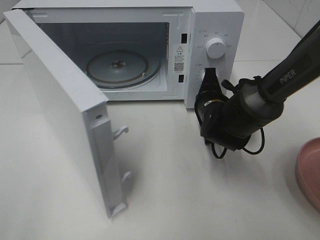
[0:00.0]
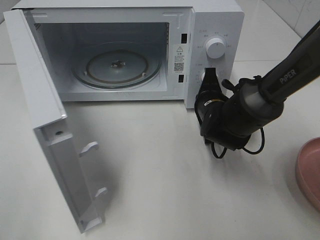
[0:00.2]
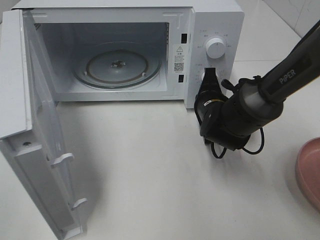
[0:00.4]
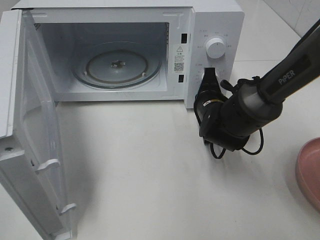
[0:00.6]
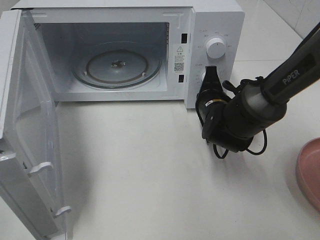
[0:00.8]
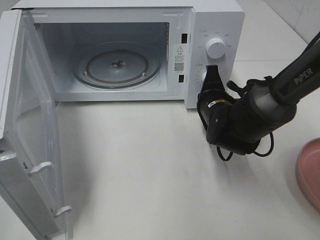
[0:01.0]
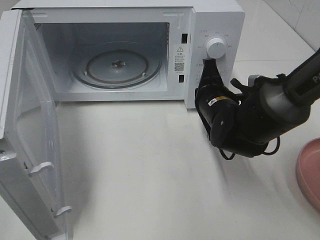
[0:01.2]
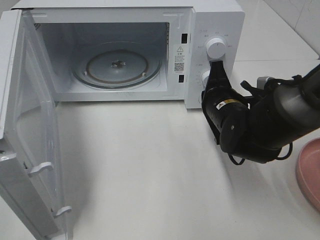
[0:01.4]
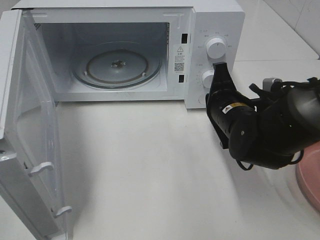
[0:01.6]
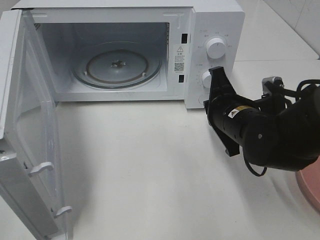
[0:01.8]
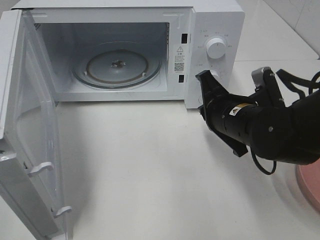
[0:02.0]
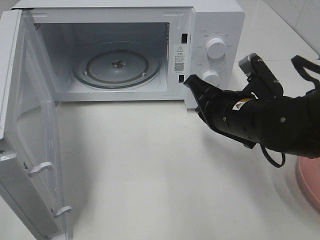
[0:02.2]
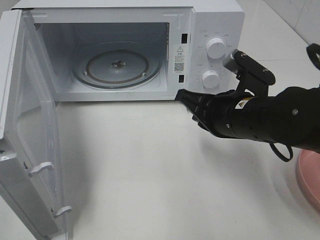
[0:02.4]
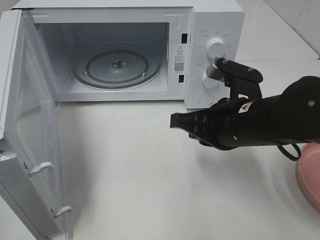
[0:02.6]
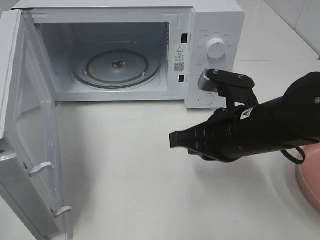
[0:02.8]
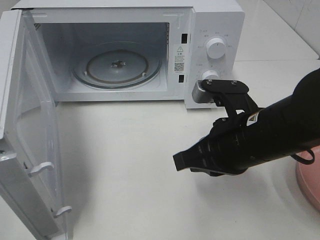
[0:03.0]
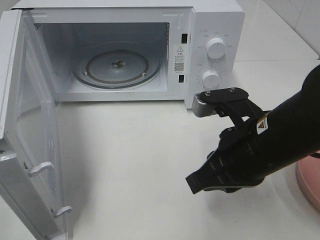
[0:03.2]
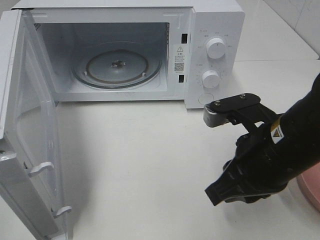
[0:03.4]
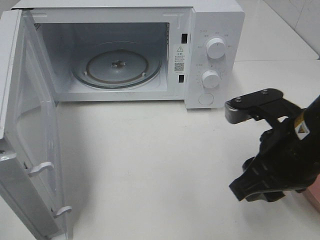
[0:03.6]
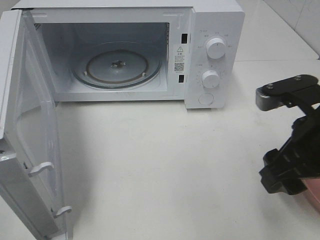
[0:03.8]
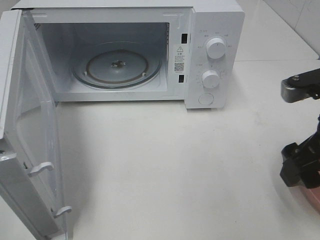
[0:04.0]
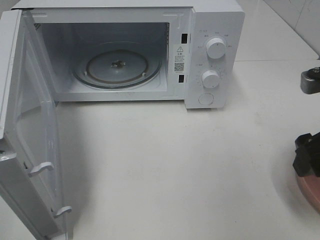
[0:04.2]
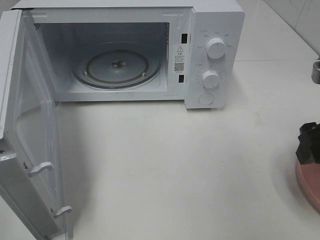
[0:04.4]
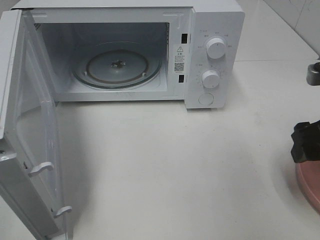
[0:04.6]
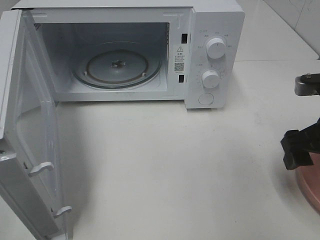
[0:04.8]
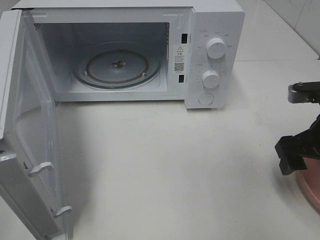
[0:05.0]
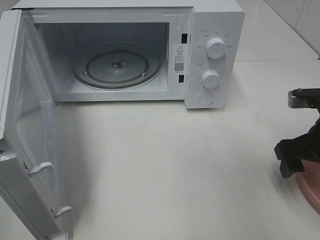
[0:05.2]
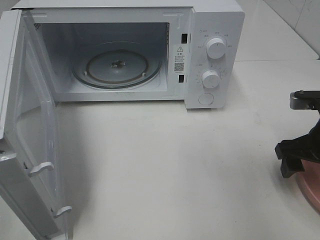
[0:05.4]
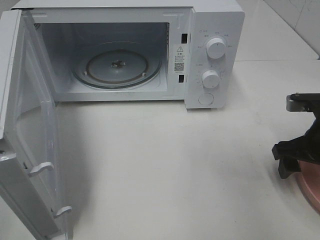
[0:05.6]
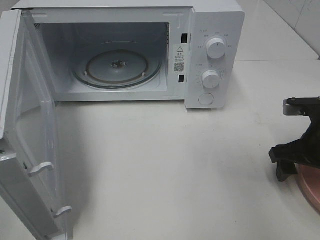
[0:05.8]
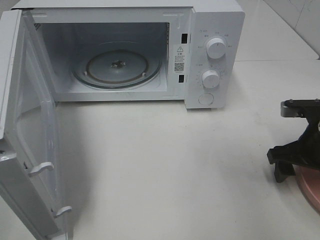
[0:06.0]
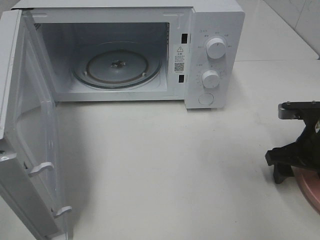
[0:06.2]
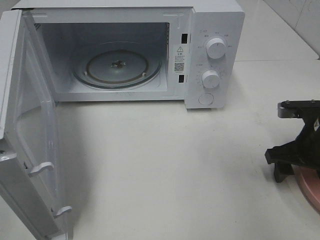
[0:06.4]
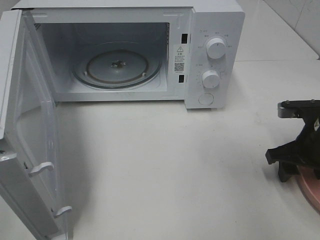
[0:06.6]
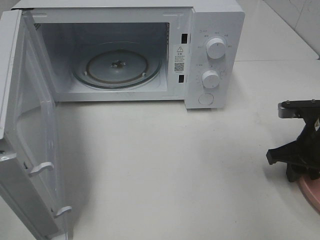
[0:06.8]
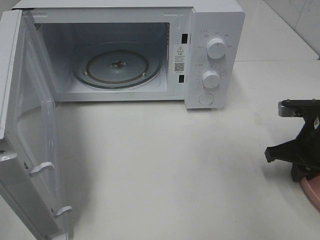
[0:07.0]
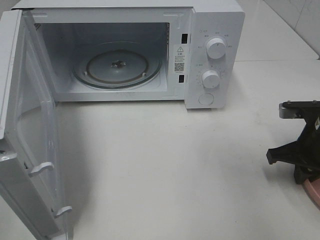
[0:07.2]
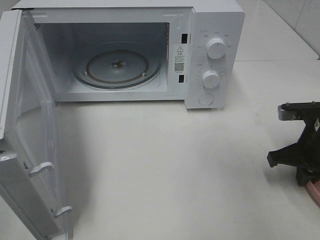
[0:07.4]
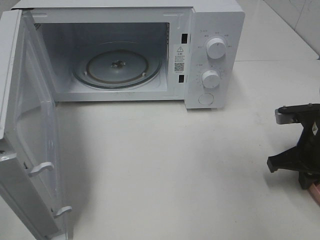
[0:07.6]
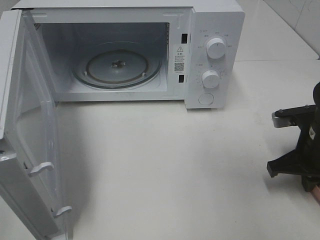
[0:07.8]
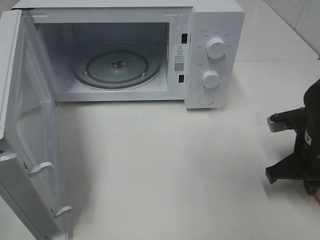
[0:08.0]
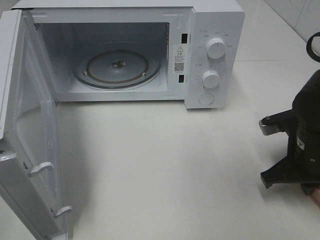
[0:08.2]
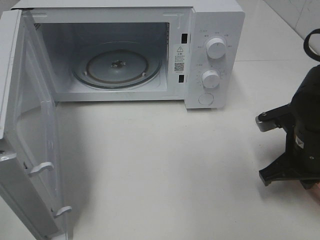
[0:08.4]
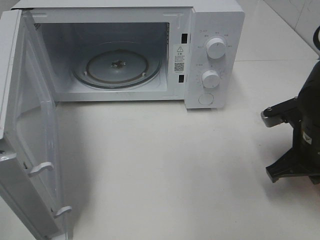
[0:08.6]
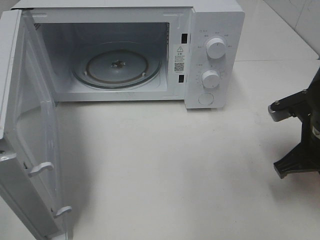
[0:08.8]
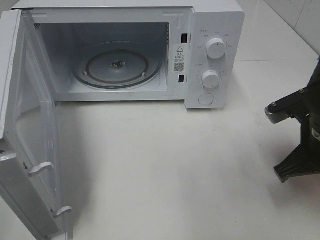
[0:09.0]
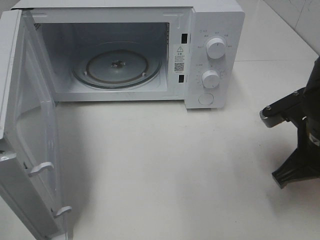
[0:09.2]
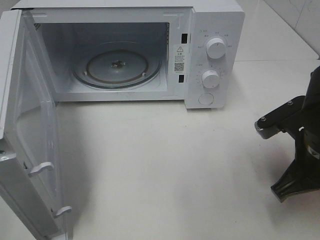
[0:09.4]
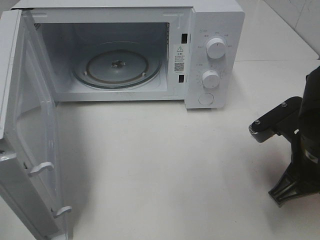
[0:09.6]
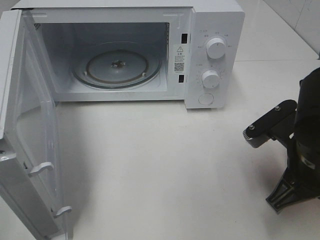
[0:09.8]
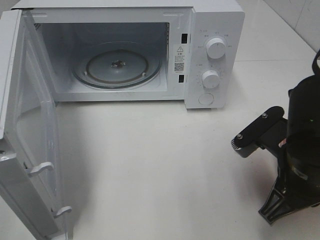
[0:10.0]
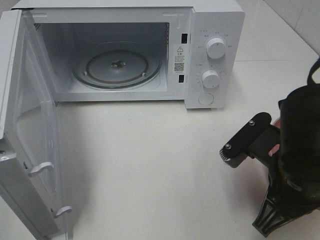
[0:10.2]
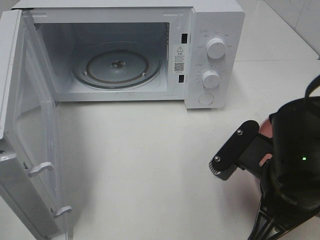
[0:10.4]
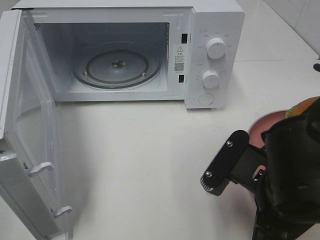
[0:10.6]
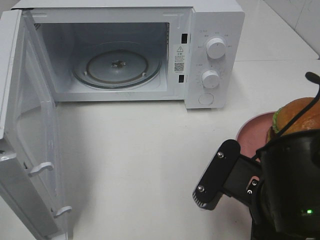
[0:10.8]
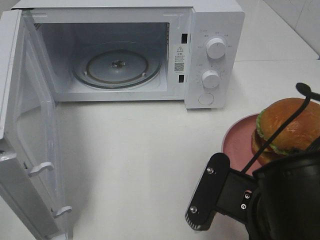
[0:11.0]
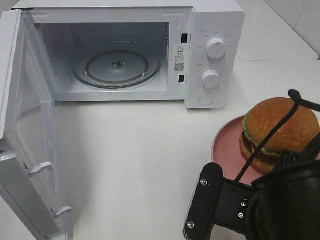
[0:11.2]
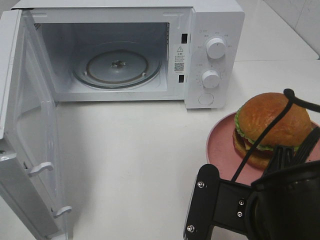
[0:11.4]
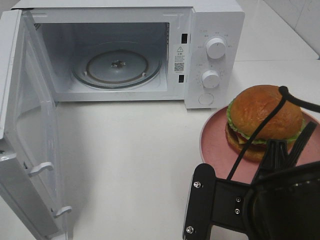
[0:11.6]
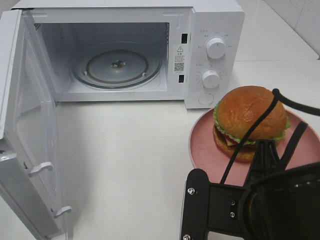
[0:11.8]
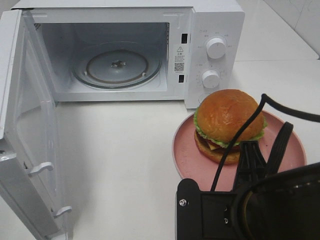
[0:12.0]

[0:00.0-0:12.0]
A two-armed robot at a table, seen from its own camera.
Task of the whole recording: Heat the burger.
Step, 0:01.2 to 0:07.4: Right hand: grab the plate with the hamburger.
0:00.0 to 0:01.6: The right gripper heads backward, covering some 5 cm.
0:01.6 to 0:03.0: The right gripper heads backward and upward, covering roughly 10 cm.
0:03.0 to 0:04.4: The right gripper heads to the right, covering some 15 cm, and opens.
0:04.4 to 0:06.0: The right gripper goes about 10 cm downward and forward.
0:06.0 to 0:07.6: The right gripper closes up.
0:07.6 to 0:09.0: The right gripper changes place by some 5 cm.
0:09.0 to 0:10.4: The right gripper moves to the left and backward, approximately 10 cm.
0:10.4 to 0:12.0: The right gripper moves some 5 cm.

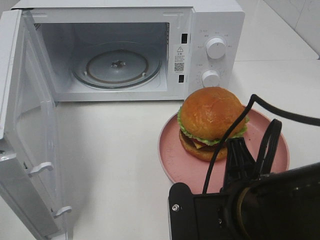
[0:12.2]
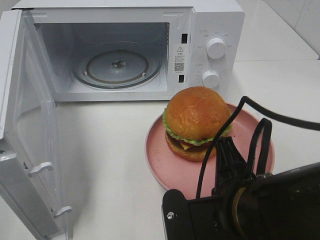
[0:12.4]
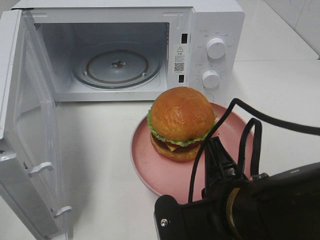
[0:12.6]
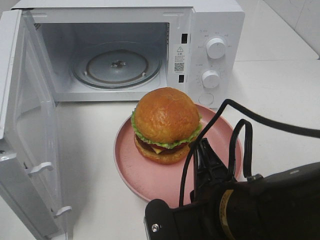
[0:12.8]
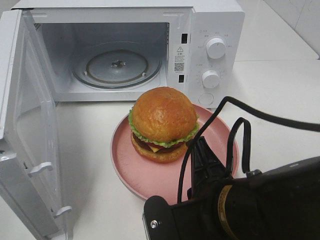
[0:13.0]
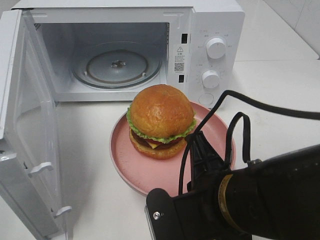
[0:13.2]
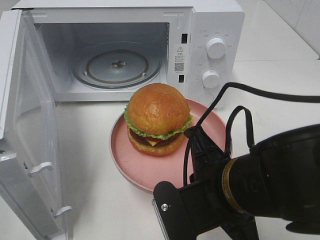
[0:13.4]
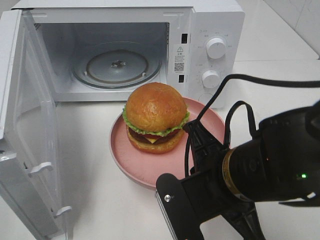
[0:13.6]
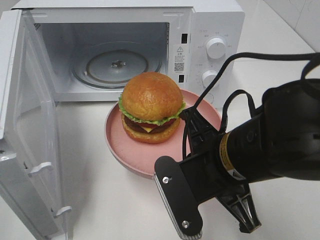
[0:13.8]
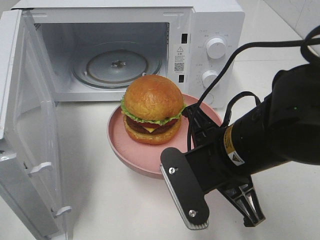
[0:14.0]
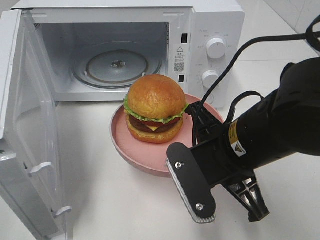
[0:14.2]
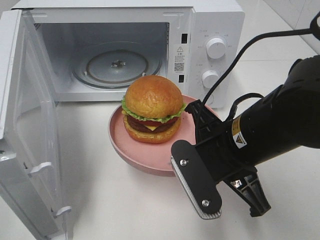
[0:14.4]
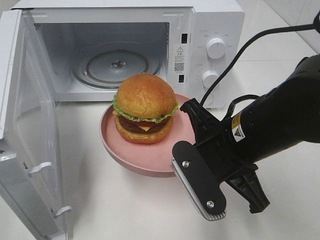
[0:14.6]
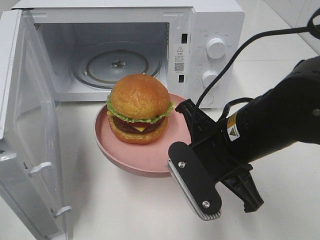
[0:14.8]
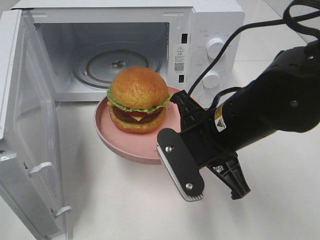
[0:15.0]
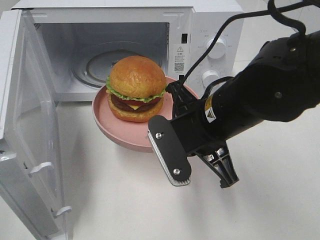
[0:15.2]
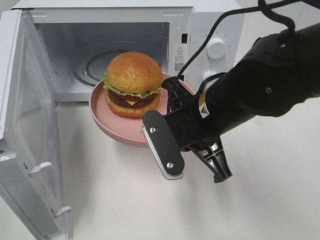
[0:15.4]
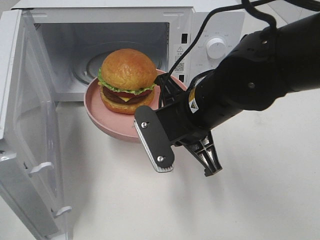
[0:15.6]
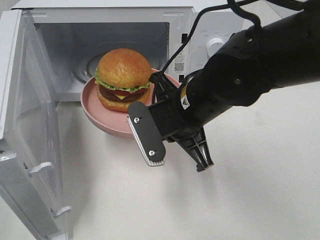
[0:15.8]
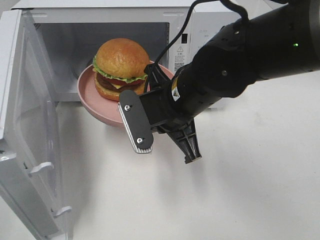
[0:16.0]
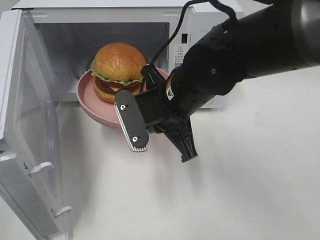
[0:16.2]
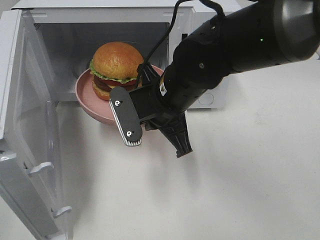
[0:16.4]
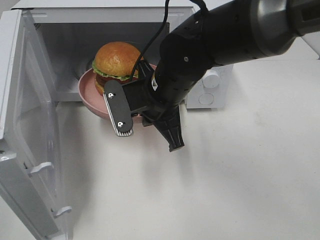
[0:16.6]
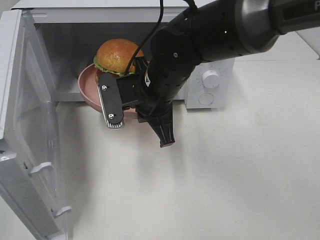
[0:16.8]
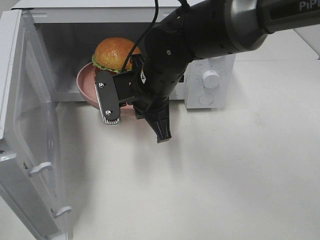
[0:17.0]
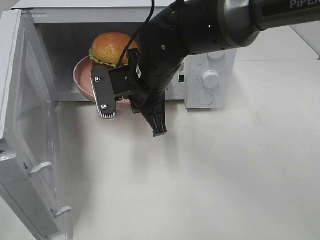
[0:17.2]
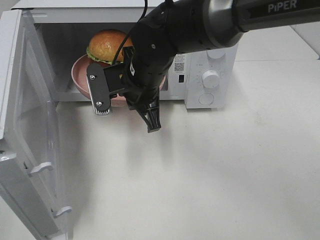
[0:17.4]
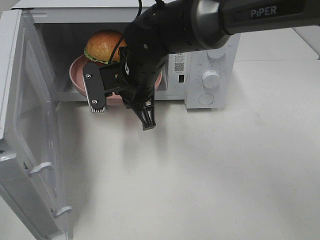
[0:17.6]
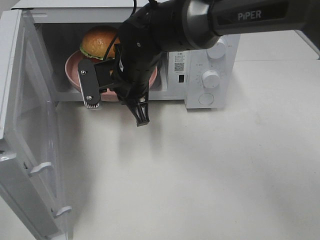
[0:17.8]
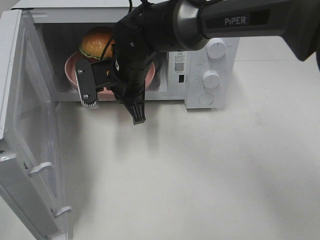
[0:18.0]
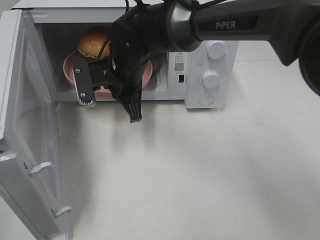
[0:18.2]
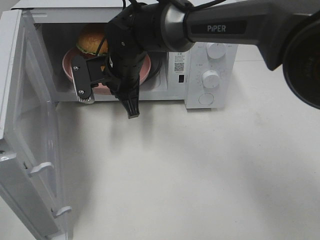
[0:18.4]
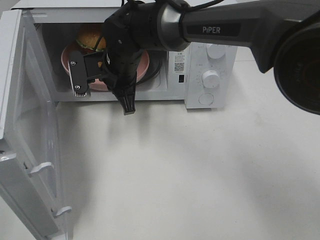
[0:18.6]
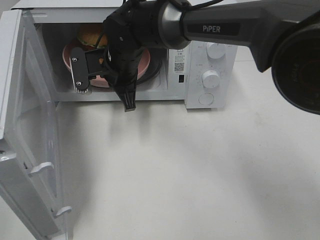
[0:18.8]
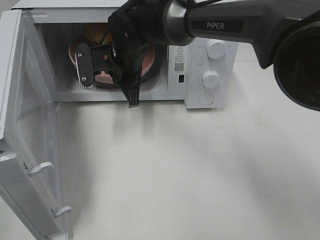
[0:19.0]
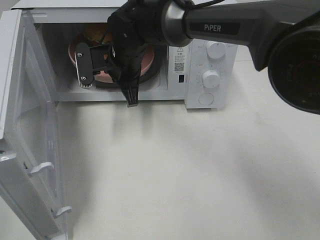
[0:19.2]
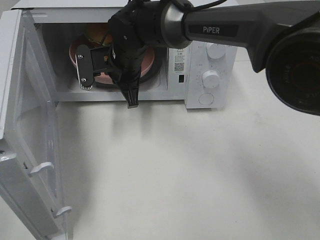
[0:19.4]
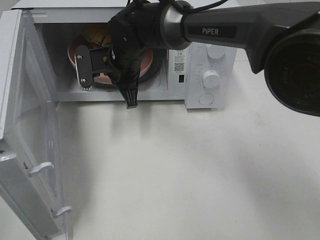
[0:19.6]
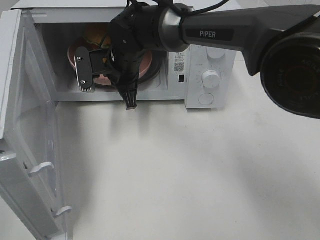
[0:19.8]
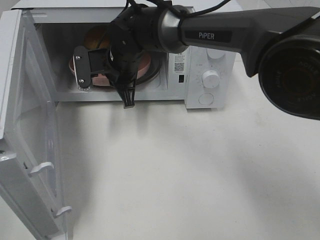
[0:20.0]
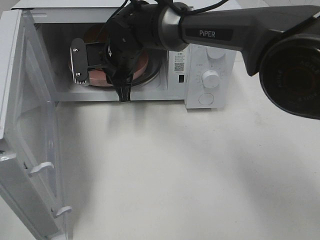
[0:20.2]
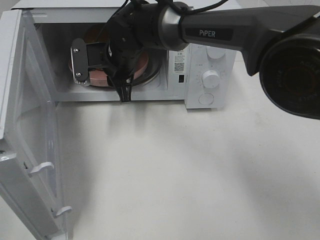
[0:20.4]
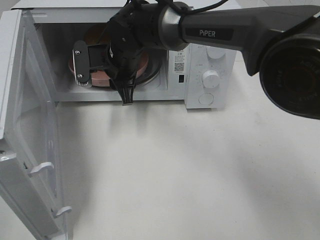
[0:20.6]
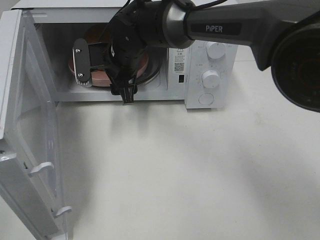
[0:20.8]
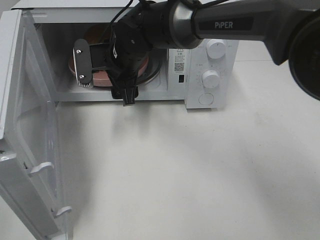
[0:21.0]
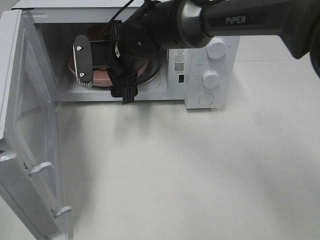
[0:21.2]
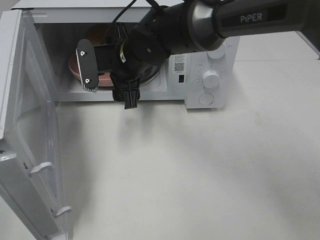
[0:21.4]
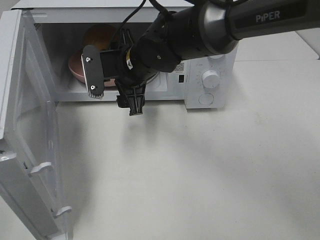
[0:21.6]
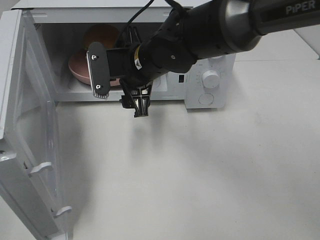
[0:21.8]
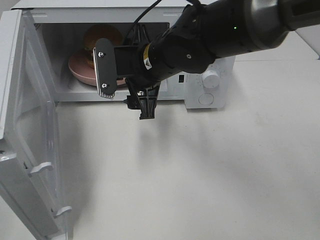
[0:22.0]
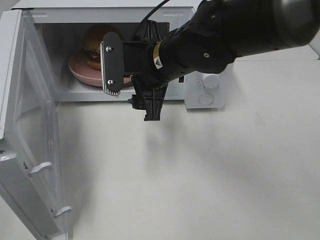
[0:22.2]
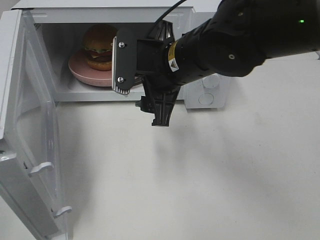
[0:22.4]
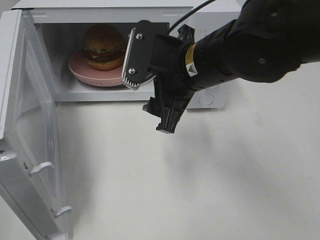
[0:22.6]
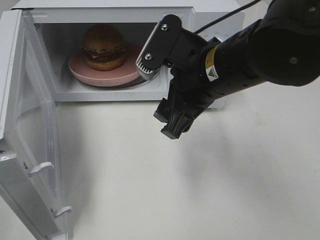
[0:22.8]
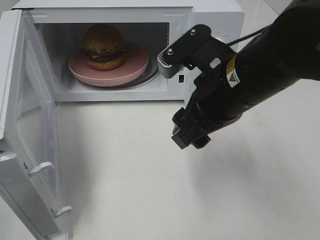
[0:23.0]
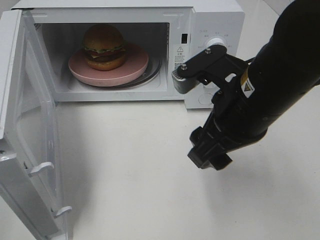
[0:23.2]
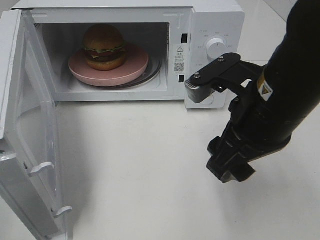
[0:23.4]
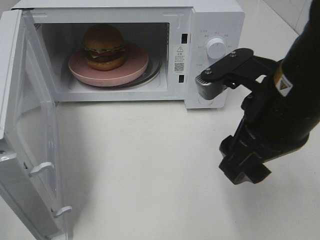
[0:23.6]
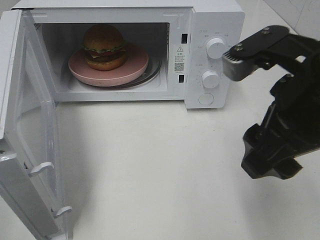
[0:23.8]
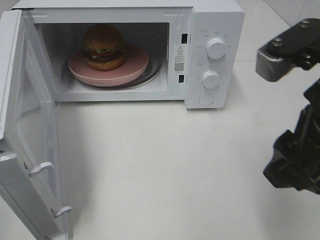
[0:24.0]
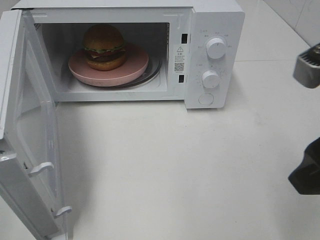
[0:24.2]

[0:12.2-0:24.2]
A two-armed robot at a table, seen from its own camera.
Task of the whole recording: Heat the burger.
Step, 0:12.2 to 0:20.2: Right hand: place the plate in the microwave.
0:12.2 to 0:13.8: The right gripper shifts some 5 cm forward.
0:13.8 to 0:15.2: The right gripper heads forward, covering approximately 5 cm.
0:15.2 to 0:16.6: The right gripper travels forward and to the left by some 10 cm.
0:16.6 to 0:18.2: The right gripper shifts approximately 10 cm forward and to the left.
0:18.2 to 0:19.8: The grippers make only small movements.
0:19.8 to 0:21.2: The right gripper opens.
0:21.2 to 0:22.6: The right gripper heads backward and to the right, covering about 15 cm.
0:22.6 to 0:24.2: The right gripper shifts approximately 20 cm to the right, backward and upward.
